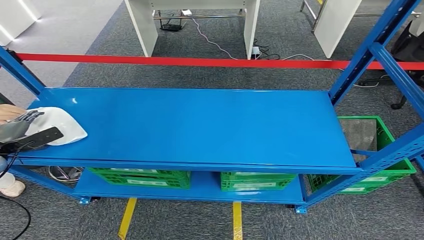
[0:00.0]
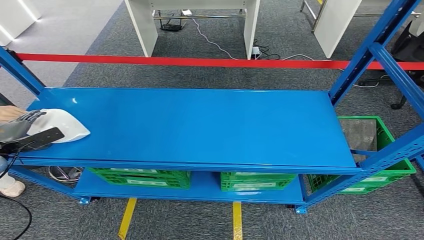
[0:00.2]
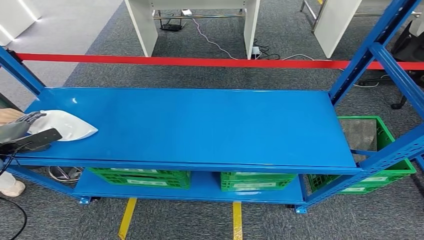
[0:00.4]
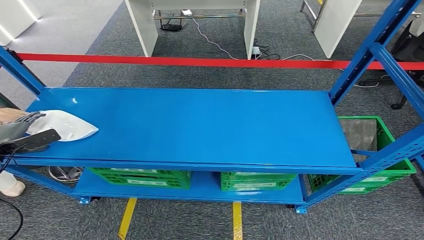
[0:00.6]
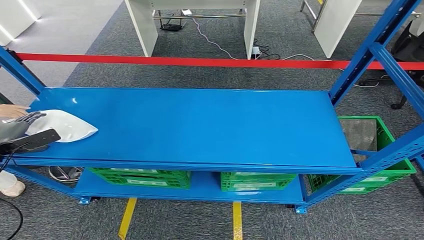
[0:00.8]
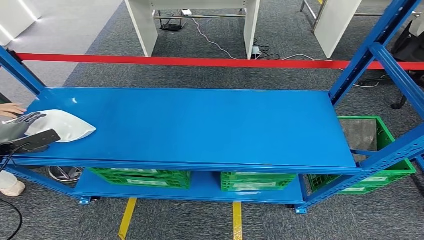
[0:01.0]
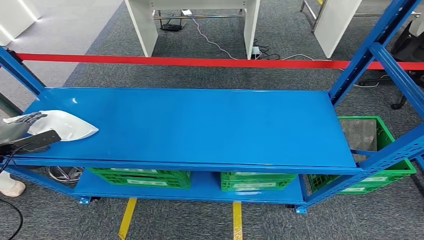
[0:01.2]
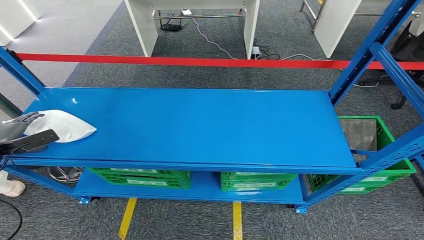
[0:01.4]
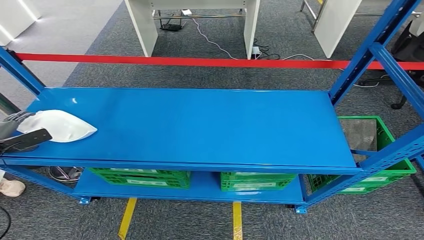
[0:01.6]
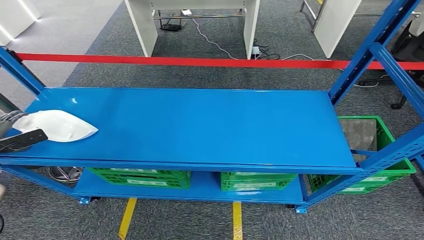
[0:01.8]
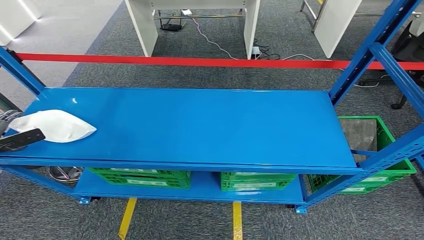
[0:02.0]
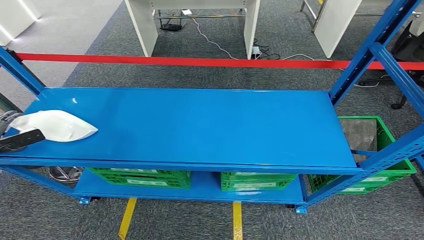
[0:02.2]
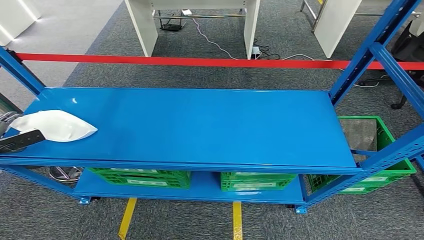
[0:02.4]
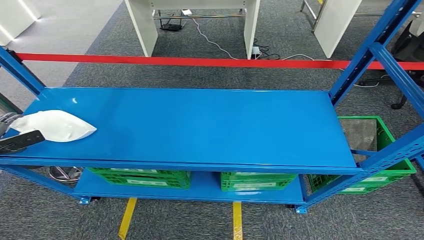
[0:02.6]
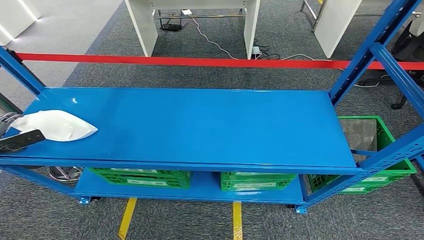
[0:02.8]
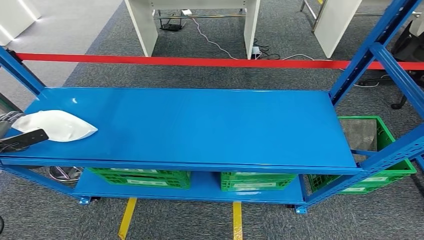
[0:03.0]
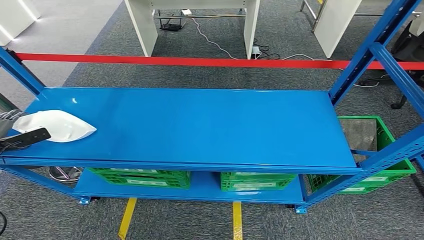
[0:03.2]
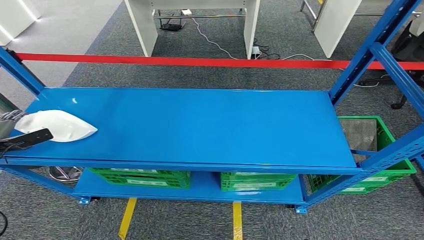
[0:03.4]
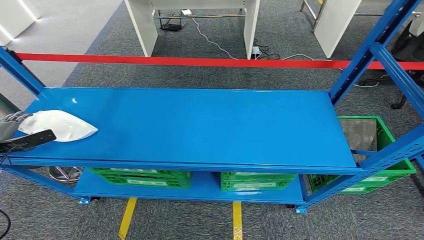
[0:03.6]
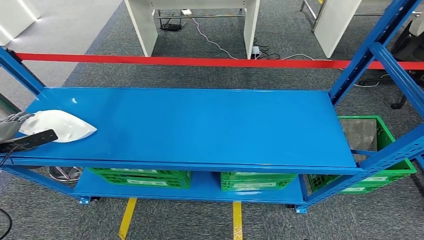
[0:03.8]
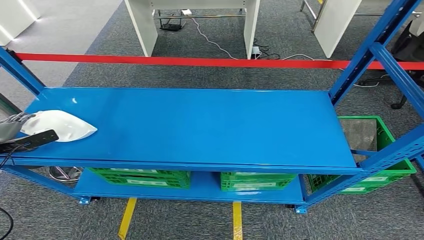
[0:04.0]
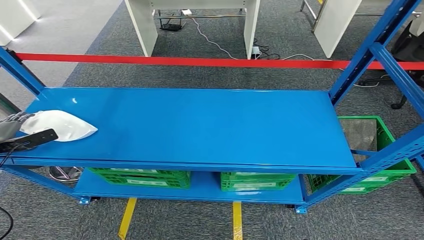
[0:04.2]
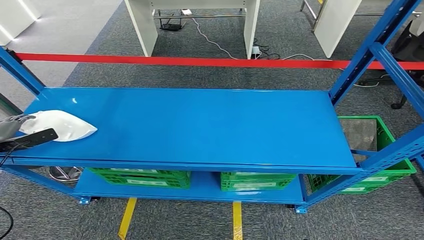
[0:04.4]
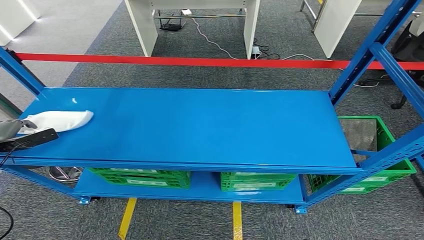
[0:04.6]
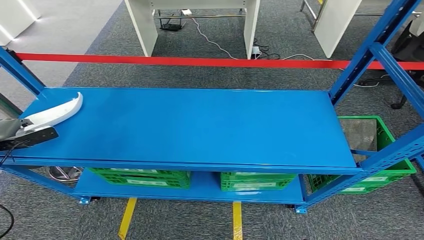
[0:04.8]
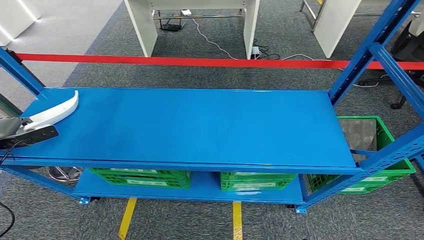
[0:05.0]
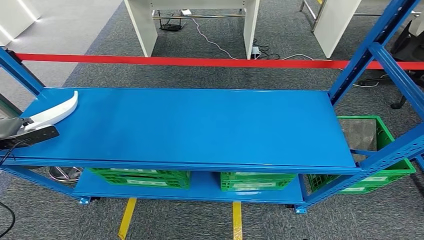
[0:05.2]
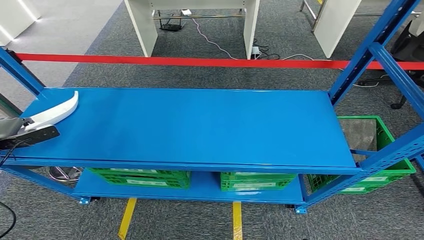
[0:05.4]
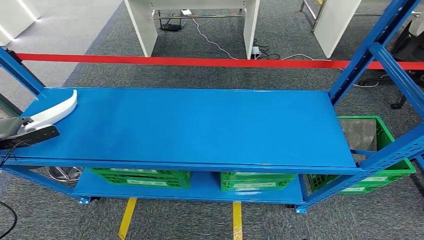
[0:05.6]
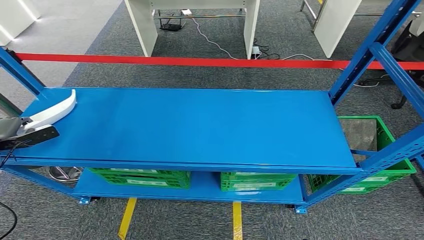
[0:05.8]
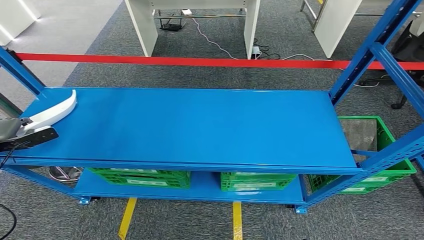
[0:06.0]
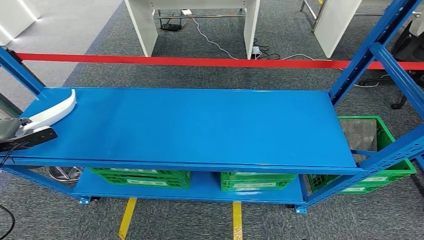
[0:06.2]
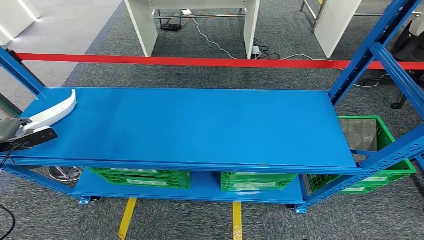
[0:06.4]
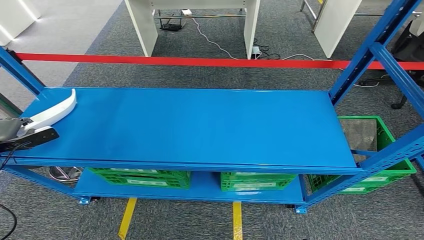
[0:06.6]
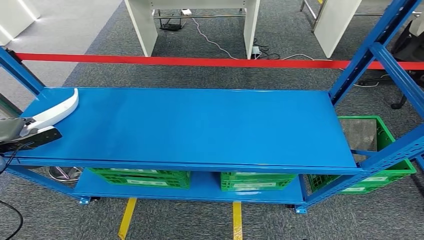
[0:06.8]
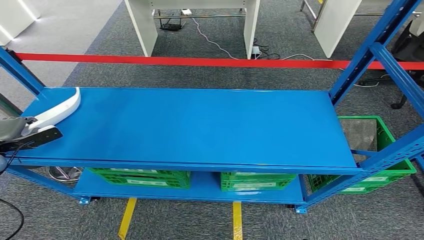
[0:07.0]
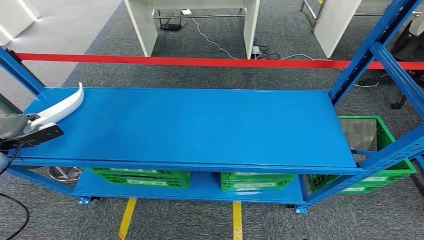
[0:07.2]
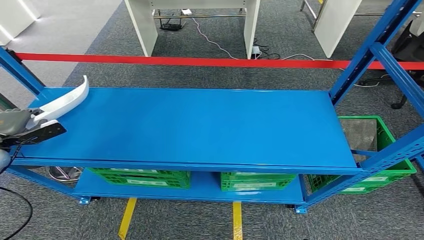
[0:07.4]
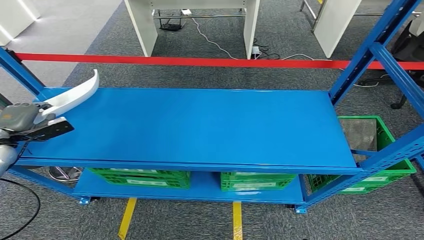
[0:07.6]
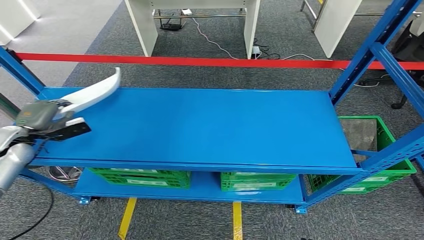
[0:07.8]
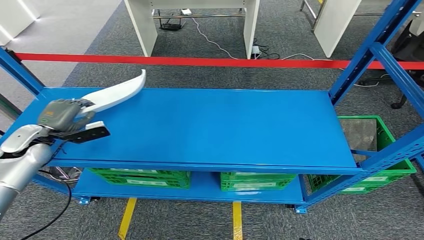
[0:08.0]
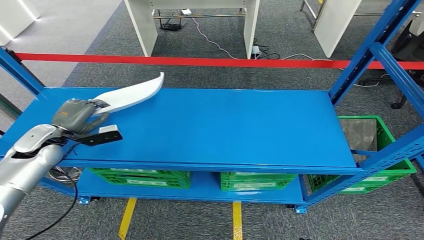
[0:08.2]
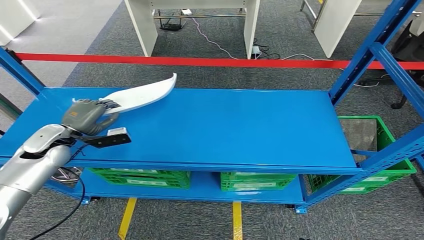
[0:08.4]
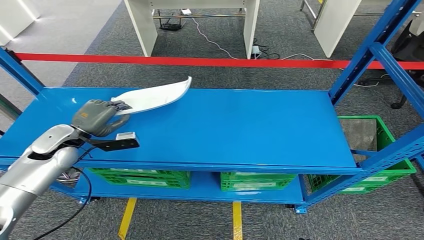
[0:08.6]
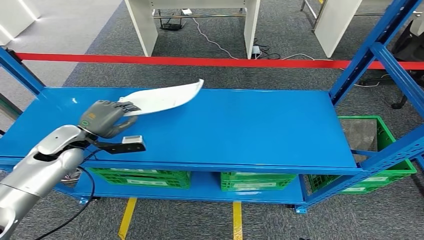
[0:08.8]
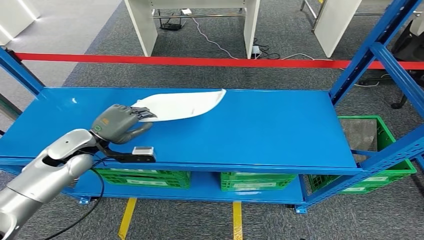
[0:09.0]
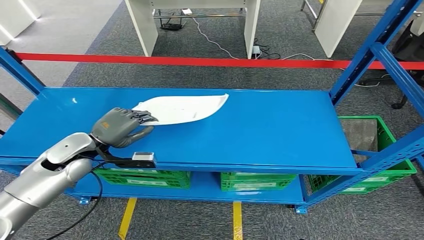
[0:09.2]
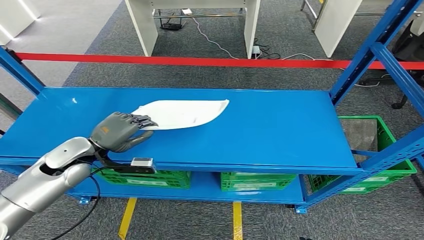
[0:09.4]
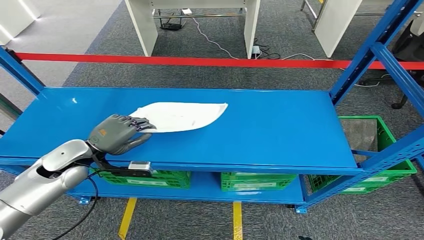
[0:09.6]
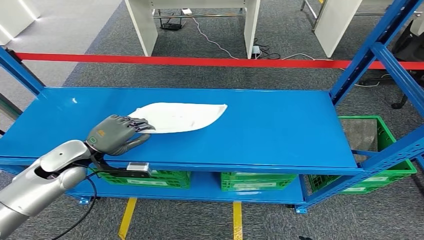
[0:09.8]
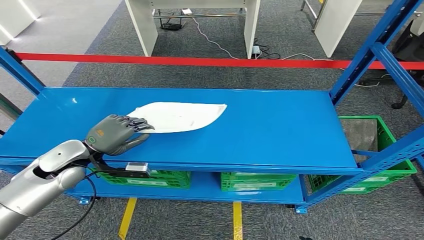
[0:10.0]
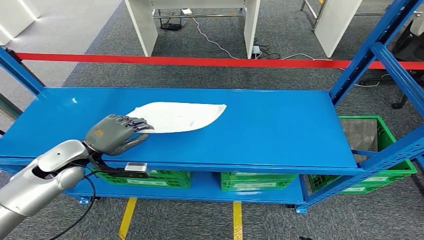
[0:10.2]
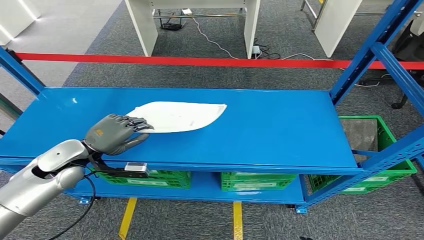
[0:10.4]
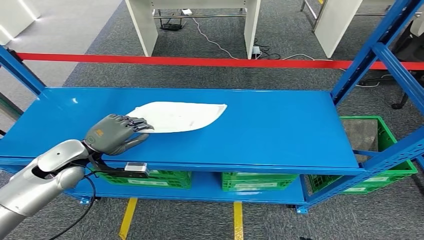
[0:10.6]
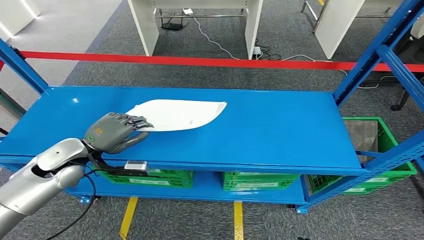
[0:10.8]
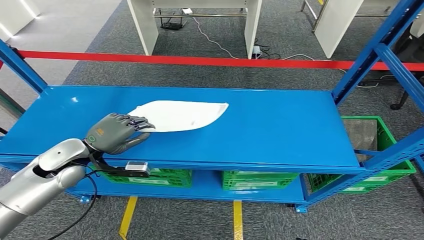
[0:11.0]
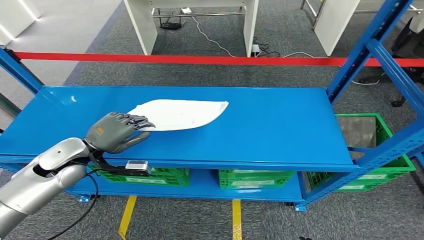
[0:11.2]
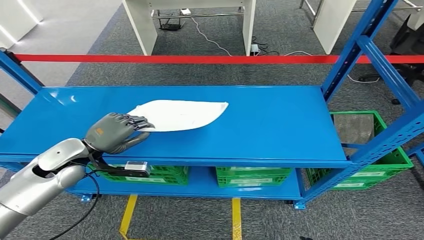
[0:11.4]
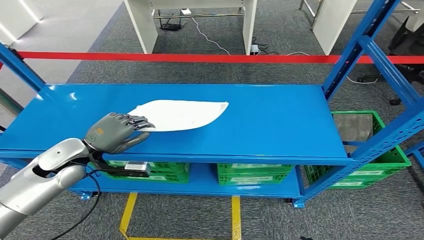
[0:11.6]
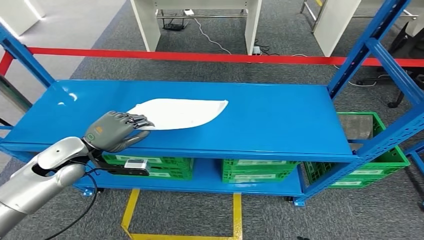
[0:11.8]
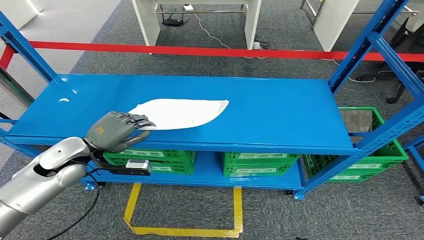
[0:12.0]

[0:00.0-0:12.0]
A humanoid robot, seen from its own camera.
0:00.0 to 0:04.4: The hands move only a little.
0:04.4 to 0:06.0: Both hands stay about where they are.
0:06.0 to 0:07.6: The left hand shifts some 5 cm to the right.
0:07.6 to 0:09.0: The left hand shifts roughly 20 cm to the right.
0:09.0 to 0:10.4: The hands make only small movements.

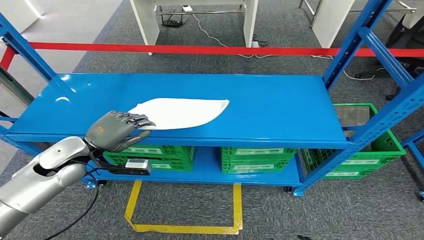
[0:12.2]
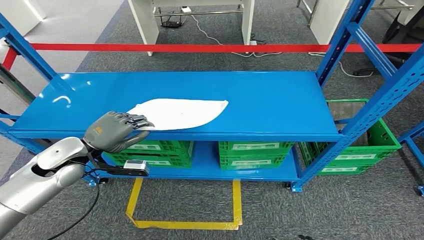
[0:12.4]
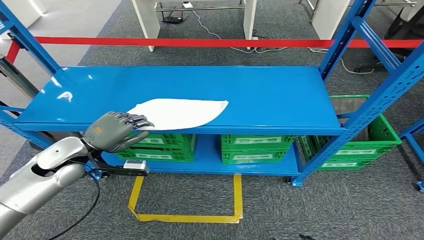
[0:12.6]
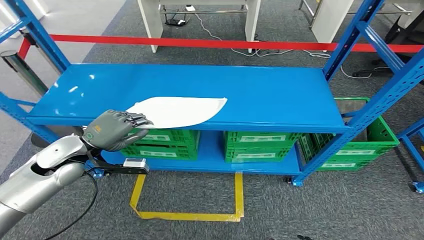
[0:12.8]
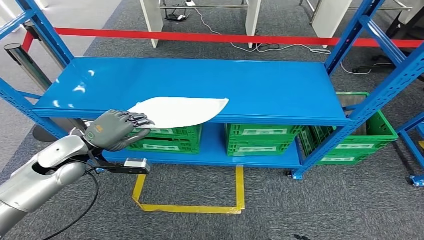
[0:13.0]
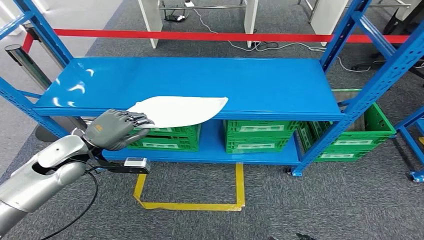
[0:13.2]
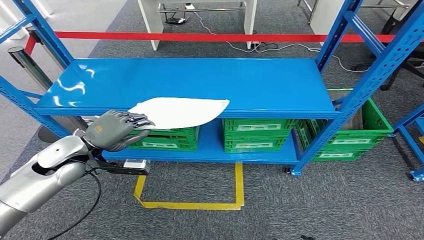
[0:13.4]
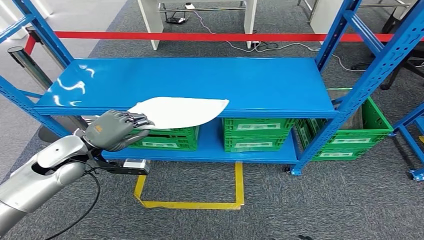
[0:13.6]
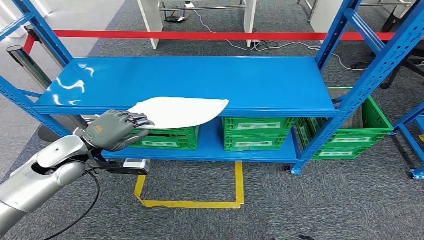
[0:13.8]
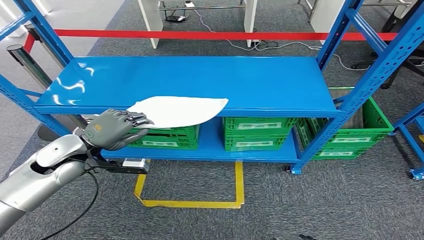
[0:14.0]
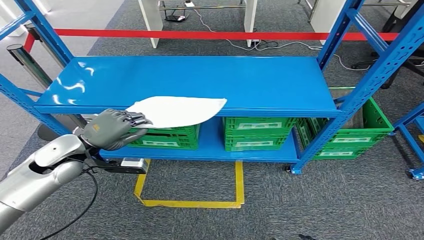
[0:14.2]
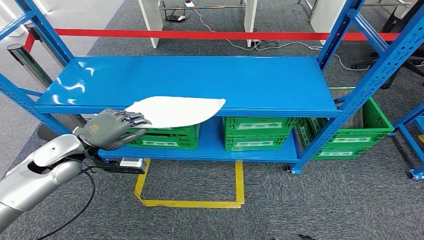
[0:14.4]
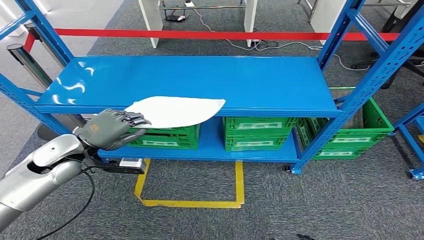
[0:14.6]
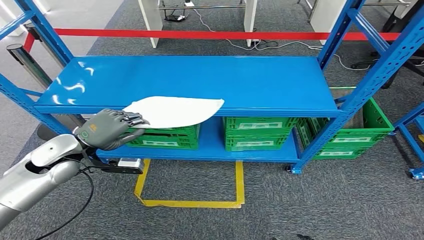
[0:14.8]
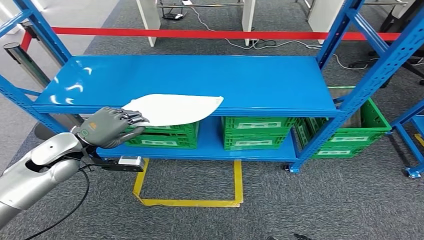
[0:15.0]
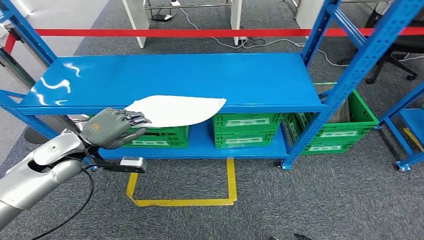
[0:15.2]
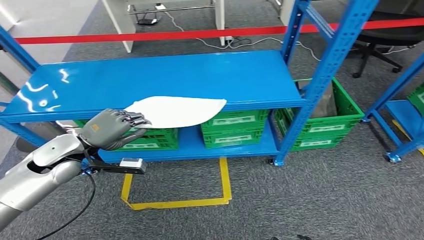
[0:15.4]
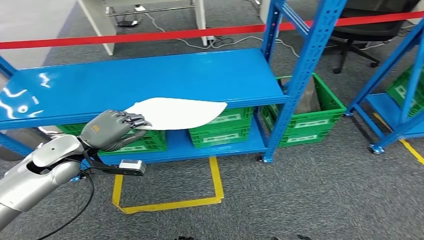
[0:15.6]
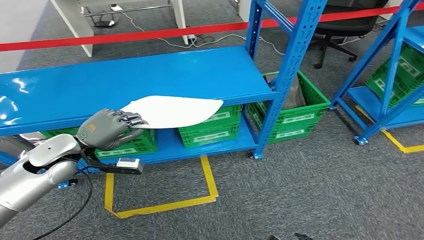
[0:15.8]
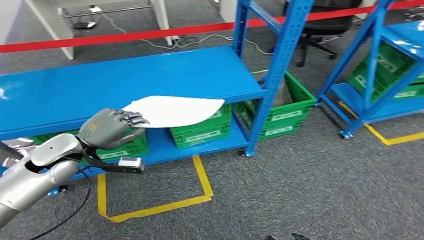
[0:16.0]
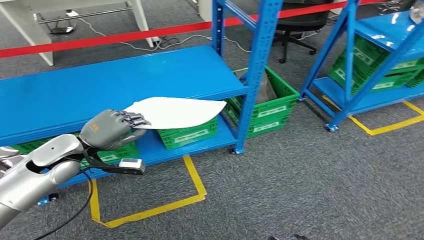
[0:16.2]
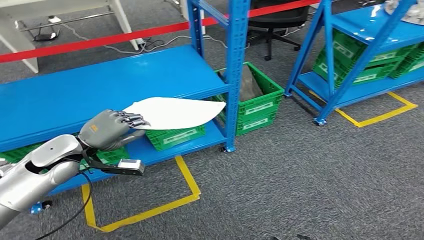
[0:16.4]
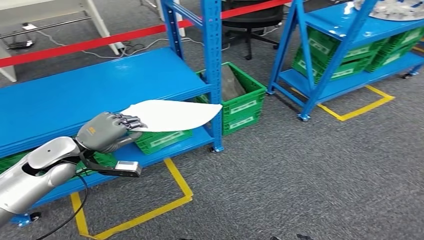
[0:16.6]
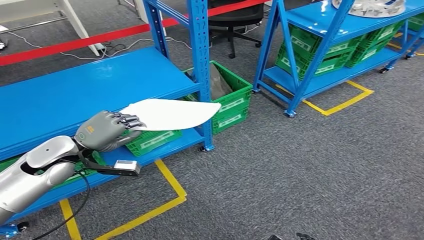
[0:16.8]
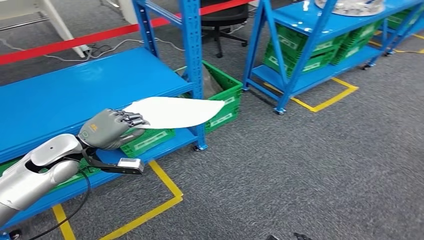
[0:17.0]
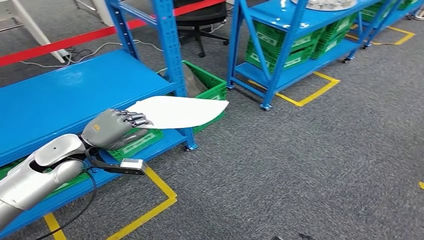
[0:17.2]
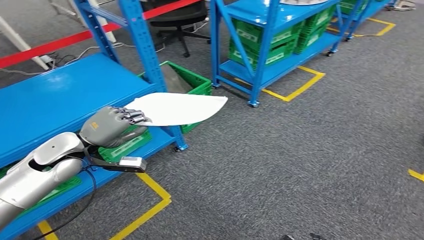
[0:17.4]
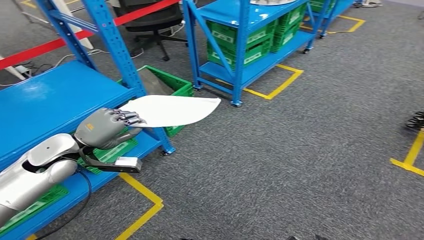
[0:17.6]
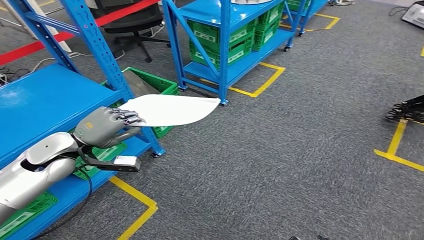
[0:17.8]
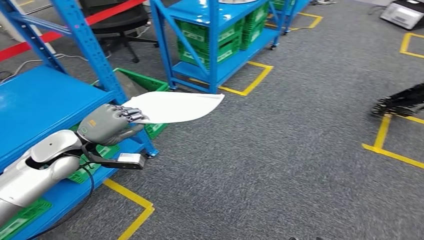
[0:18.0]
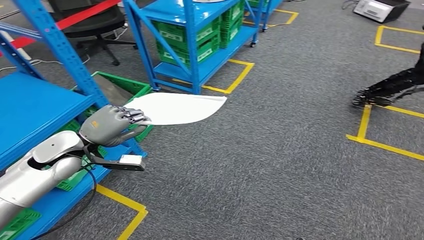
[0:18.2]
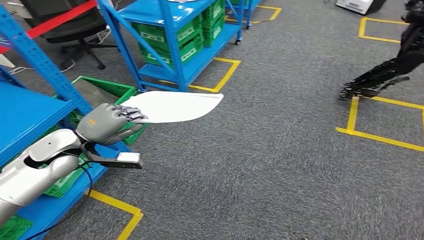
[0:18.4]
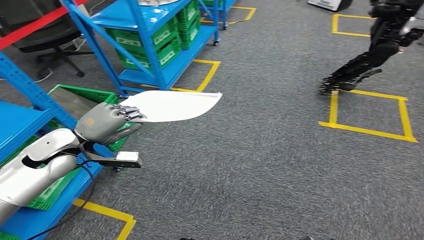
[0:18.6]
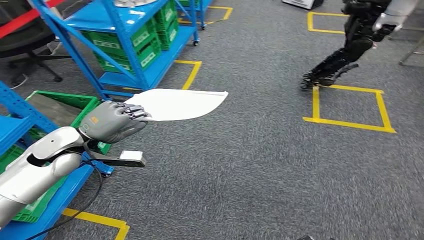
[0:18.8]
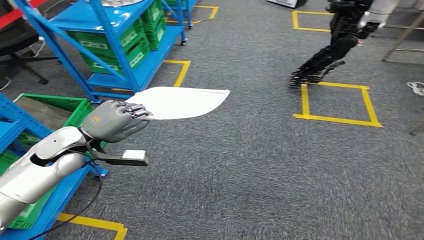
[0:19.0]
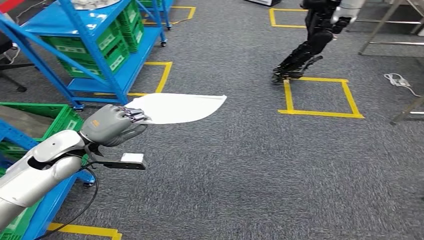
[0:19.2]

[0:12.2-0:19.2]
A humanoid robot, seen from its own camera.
Step, 0:12.2 to 0:15.8: Pick up the small component from the shelf.
0:13.6 to 0:15.0: Both hands stay put.
